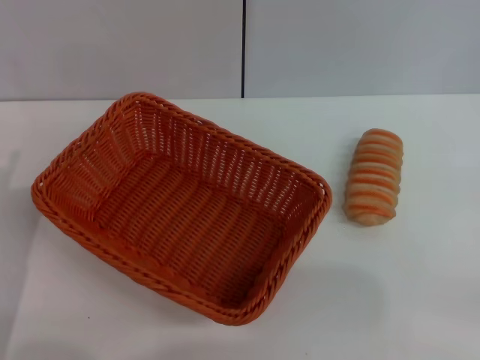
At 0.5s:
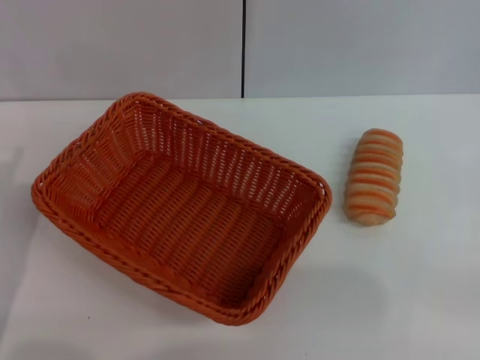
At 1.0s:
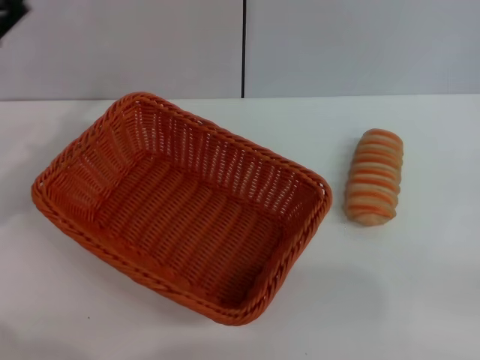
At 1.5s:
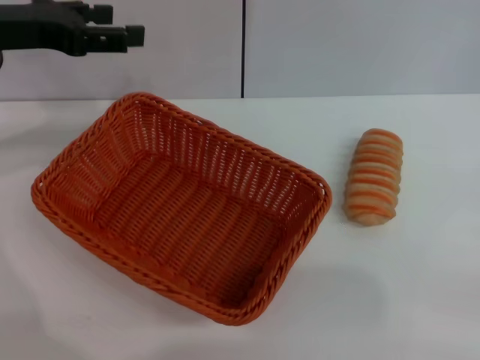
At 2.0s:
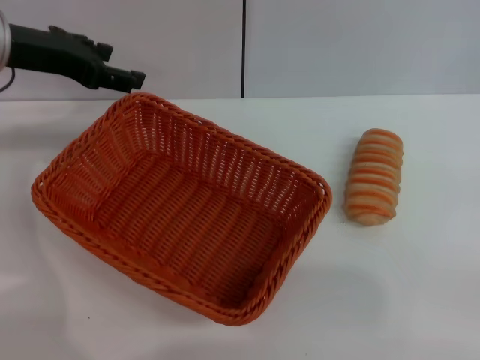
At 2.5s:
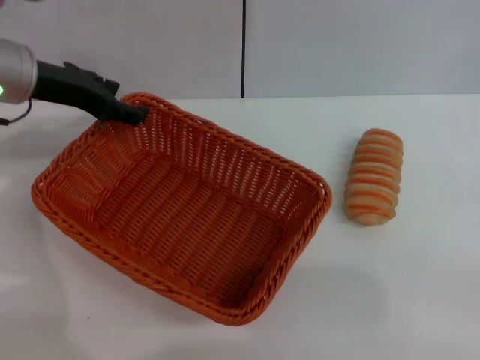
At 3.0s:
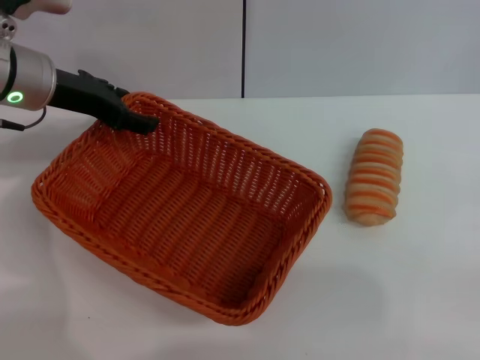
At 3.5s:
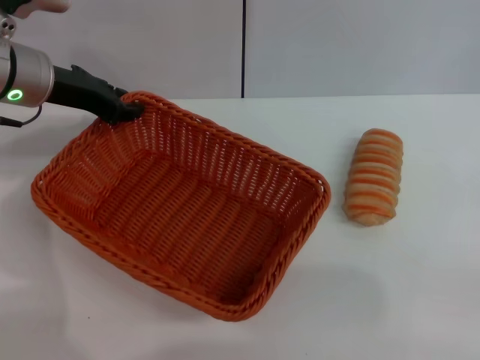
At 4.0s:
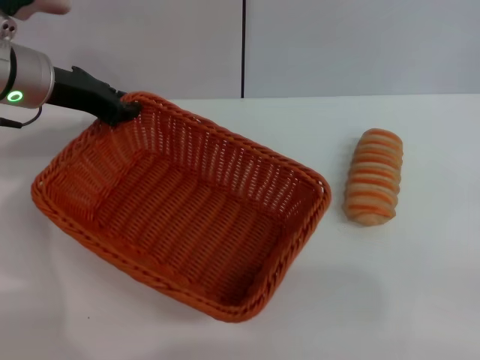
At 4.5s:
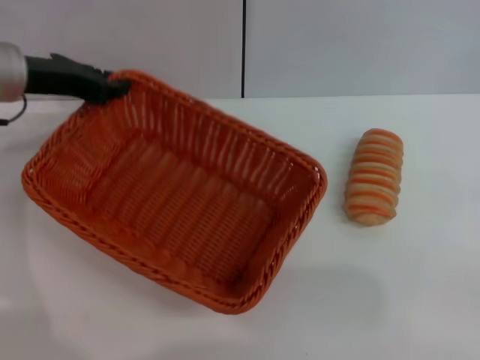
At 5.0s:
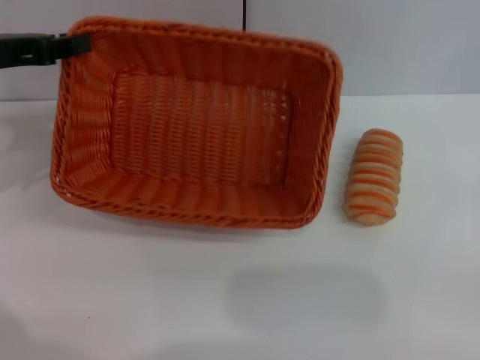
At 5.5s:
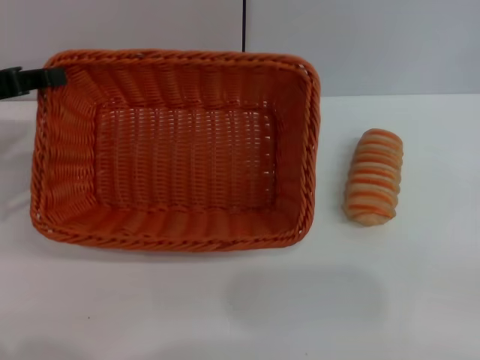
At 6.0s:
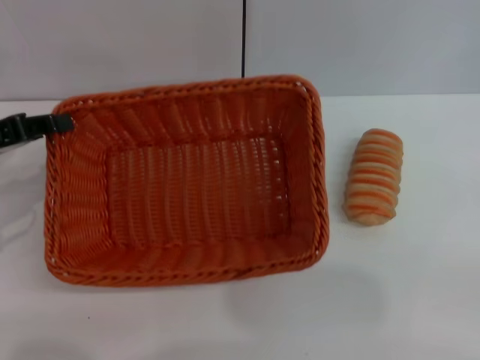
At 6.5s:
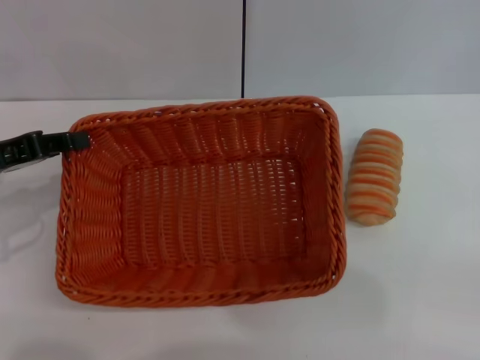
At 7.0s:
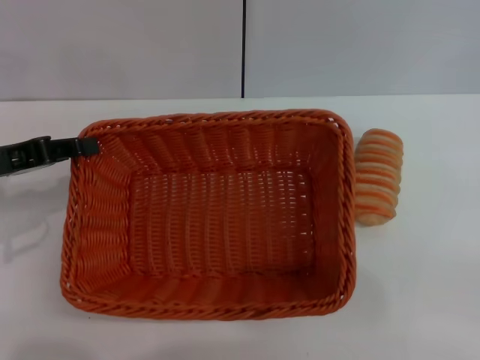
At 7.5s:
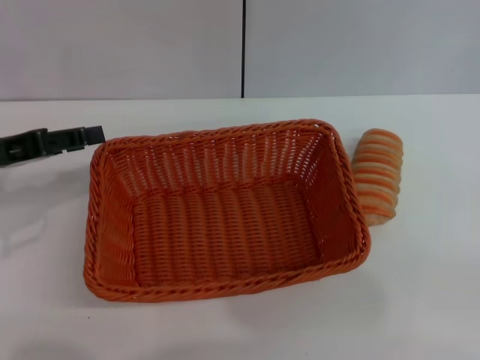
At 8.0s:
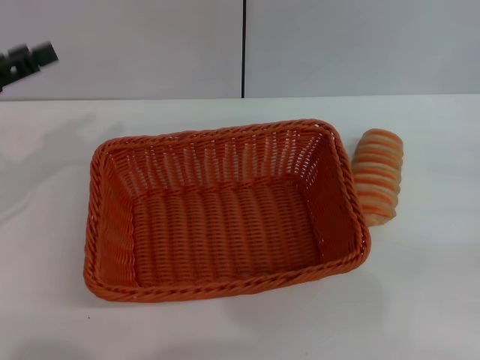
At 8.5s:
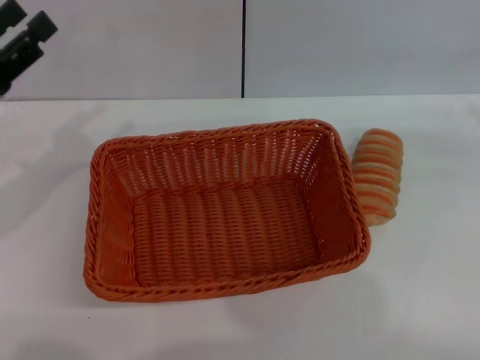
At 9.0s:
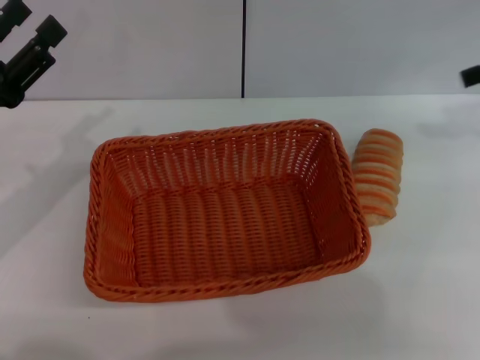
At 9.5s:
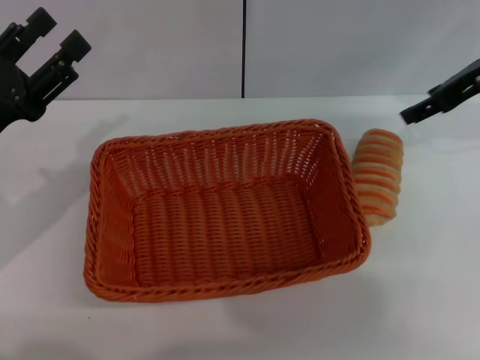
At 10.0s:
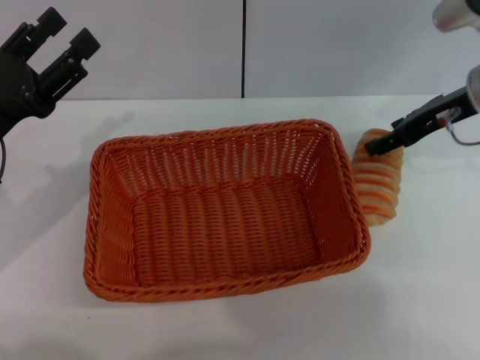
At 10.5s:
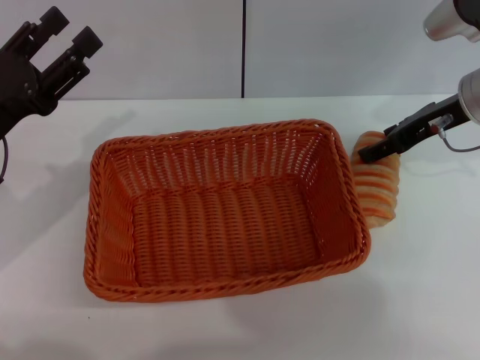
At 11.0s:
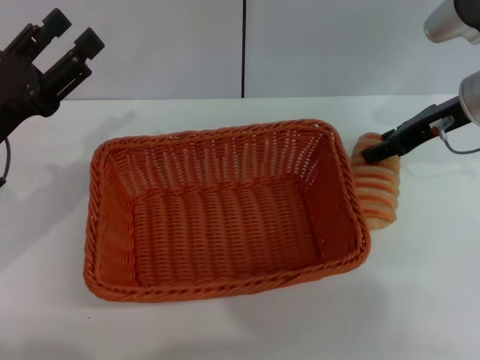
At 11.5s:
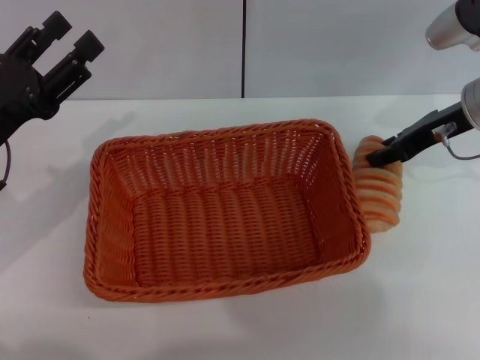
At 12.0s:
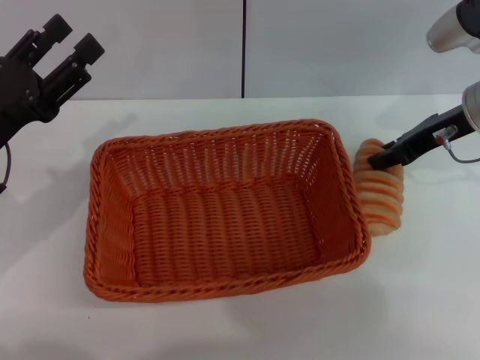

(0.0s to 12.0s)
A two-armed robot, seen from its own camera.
Step, 0.0s - 4.5s: Pick up the light basket with the left gripper.
Step, 5.0s - 7.5s: Place the light basket in the center of view with the left gripper.
0.0s - 2.0s: The left gripper is displaced forward and upward by some 25 cm.
2.0s - 4.0s: The left gripper changes place by approximately 5 cm, and closes.
4.0s - 6.0s: The left gripper travels backward and to the left by about 15 cm.
6.0s - 8.0s: The left gripper opens up.
8.0s - 10.0s: The left gripper travels to the right and downward by roughly 5 cm; the right gripper moves to the left, forward and upward, roughly 25 cm.
10.0s - 12.0s: The right gripper closes its fingers.

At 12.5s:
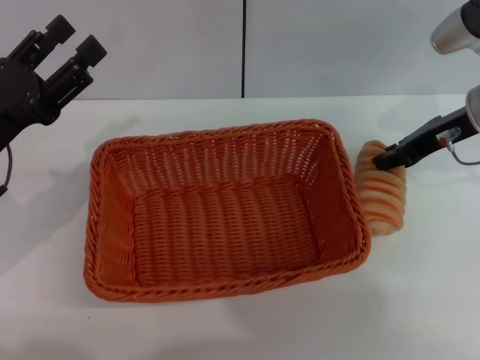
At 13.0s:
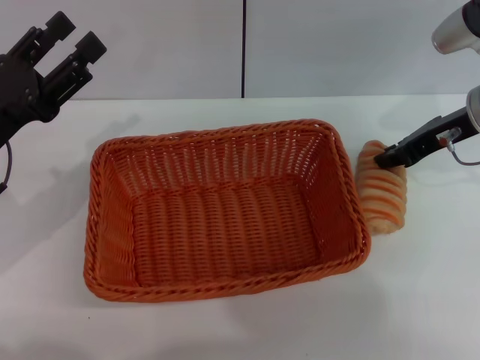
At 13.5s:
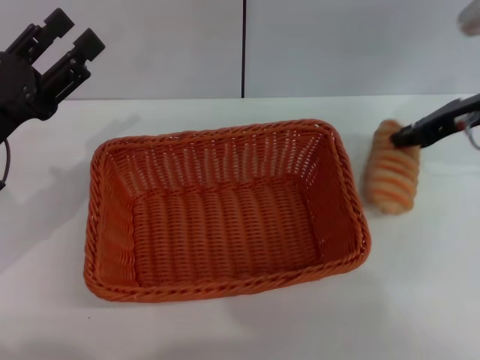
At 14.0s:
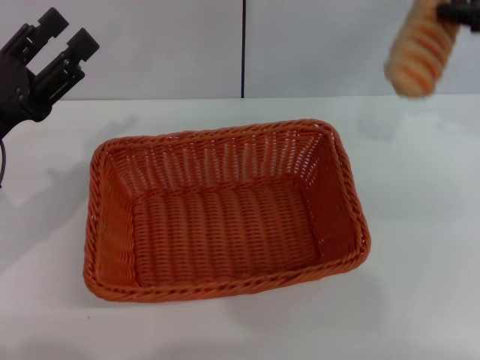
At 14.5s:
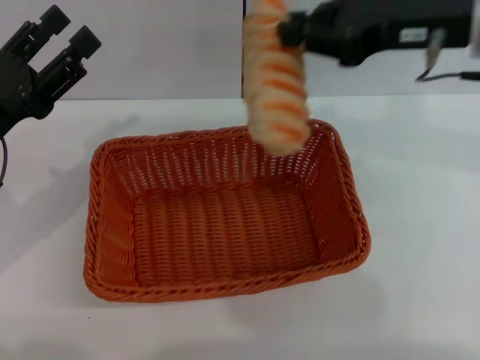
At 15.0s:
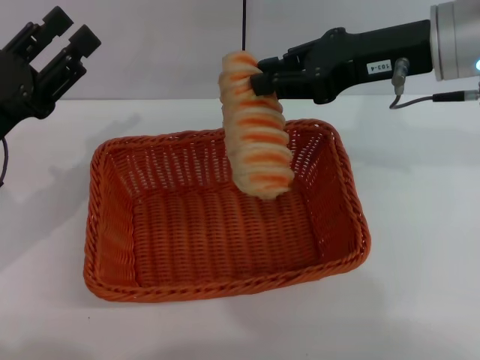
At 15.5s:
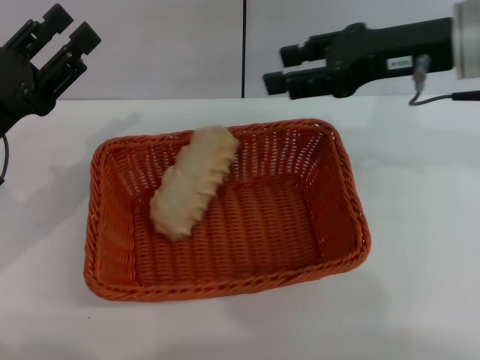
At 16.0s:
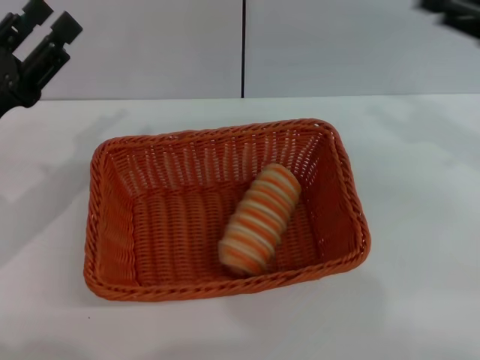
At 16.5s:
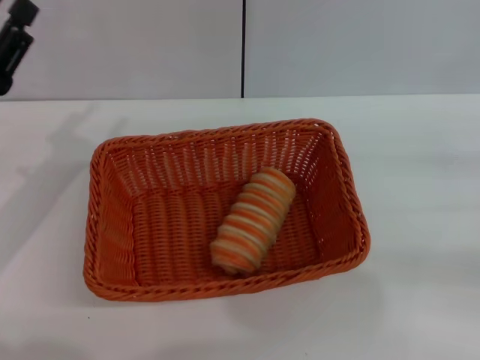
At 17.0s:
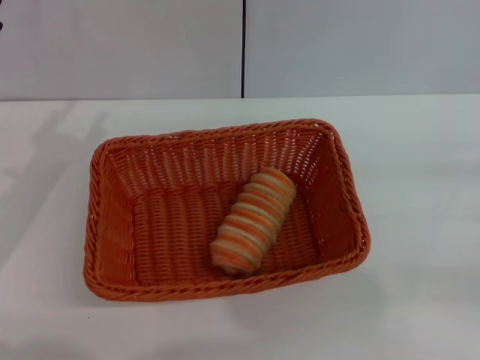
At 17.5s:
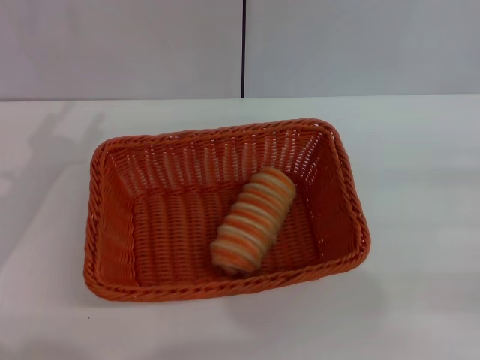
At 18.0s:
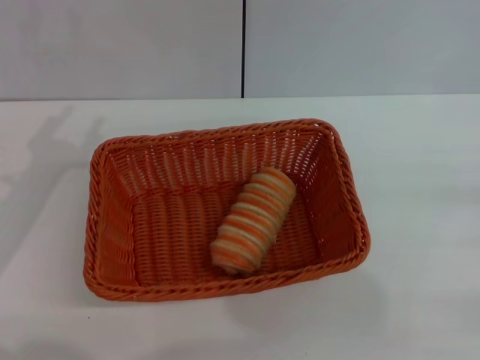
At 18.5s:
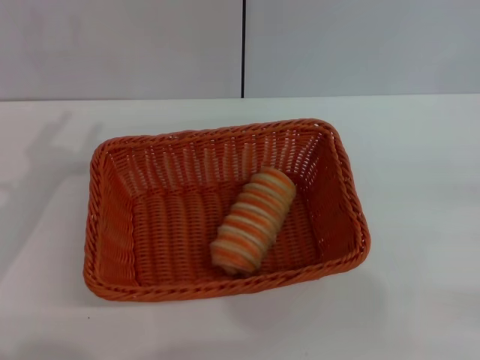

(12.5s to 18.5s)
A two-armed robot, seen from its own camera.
Step, 14.0s - 15.5s: Place the long bread into the light basket with the right gripper.
12.5s - 14.5s: The right gripper is displaced upward and to the left by about 10 cm.
14.5s - 16.5s: The right gripper moves to the right, downward and backward, some 30 cm, and opens its fingers.
16.5s - 18.5s: The grippers move only a little.
